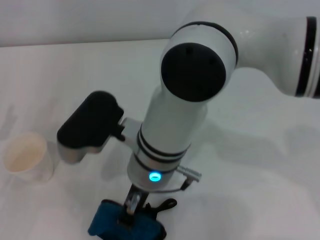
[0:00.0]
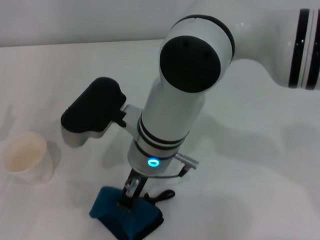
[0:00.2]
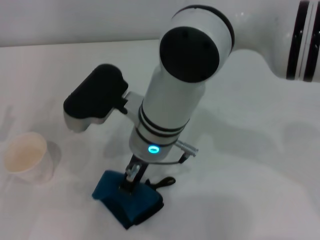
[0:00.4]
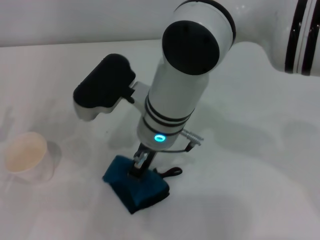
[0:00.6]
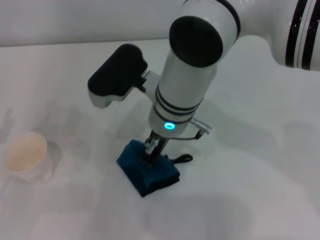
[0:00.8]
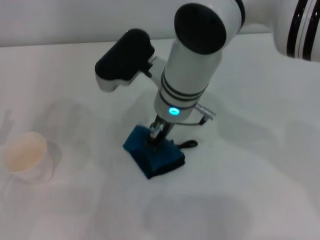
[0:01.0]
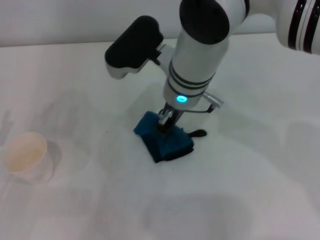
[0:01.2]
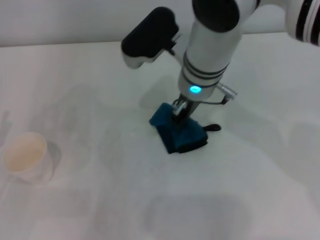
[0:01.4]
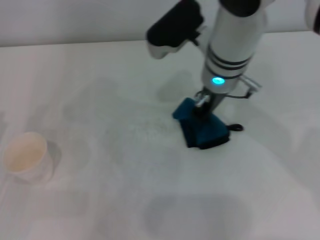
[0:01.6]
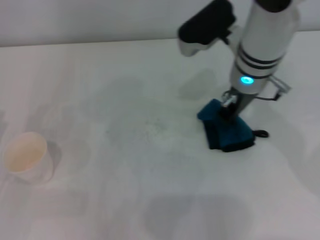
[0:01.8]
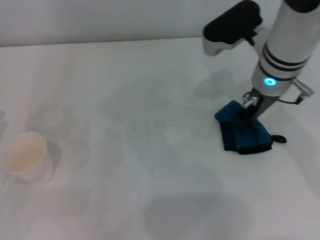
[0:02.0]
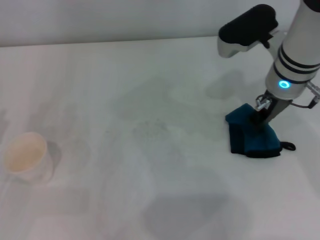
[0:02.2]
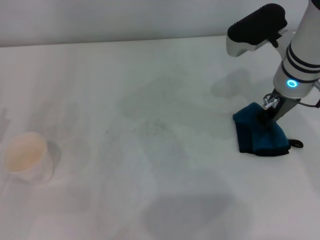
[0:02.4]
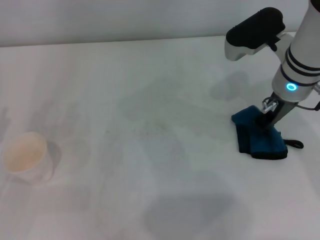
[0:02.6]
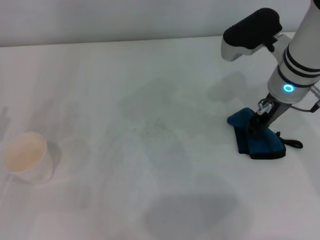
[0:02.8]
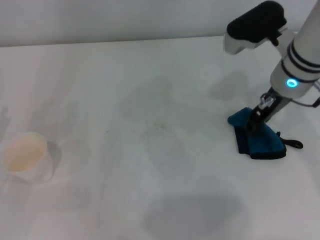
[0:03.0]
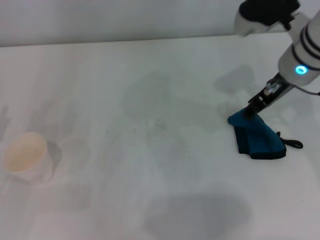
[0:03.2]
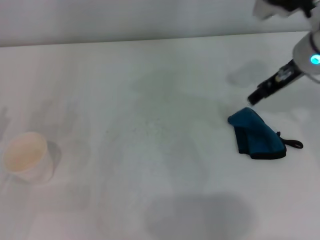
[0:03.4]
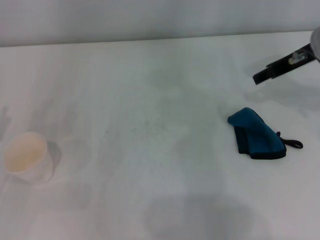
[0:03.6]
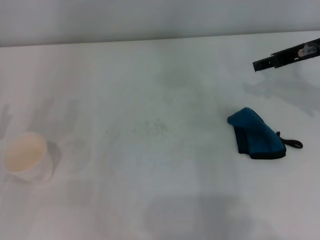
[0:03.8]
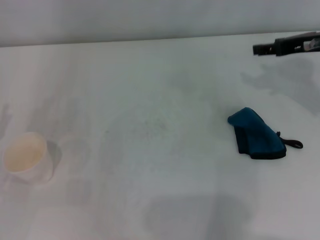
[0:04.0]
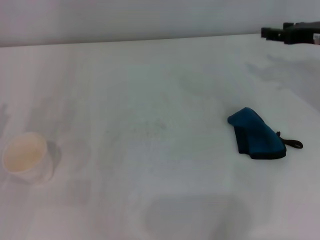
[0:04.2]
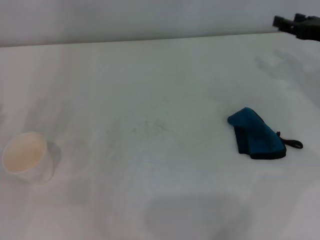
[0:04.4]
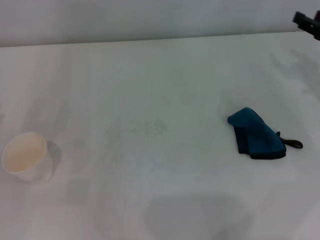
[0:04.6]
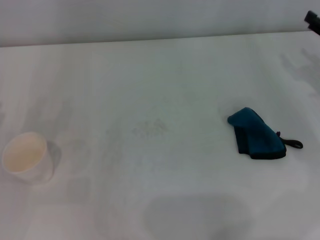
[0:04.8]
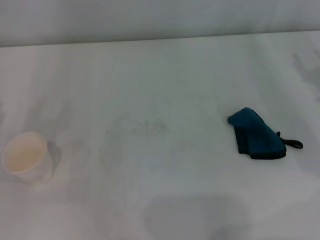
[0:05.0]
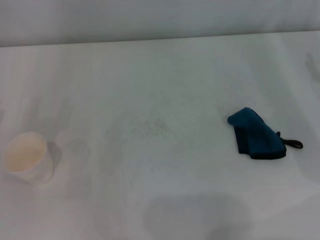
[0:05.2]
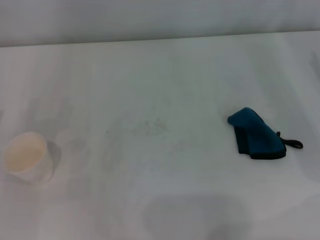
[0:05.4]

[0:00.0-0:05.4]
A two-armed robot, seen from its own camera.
Step, 0:02.0 to 0:02.6: Place the rag on the table with the right gripper.
0:00.0 to 0:01.4: The right gripper travels forward and to the right by some 15 cm.
0:01.4 to 0:02.8: The right gripper moves to the right, roughly 15 cm.
0:02.8 to 0:04.0: The right gripper is displaced to the right by approximately 10 cm, and opens its fingers.
0:04.0 to 0:05.4: The right gripper moves downward, to the right and backward, some 15 cm.

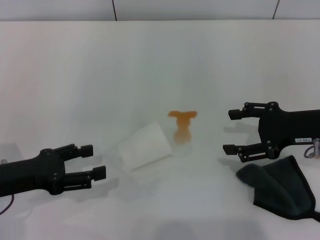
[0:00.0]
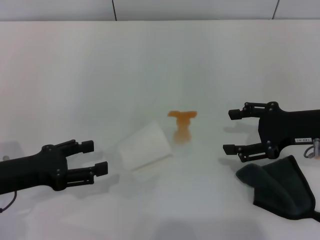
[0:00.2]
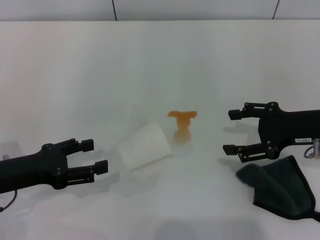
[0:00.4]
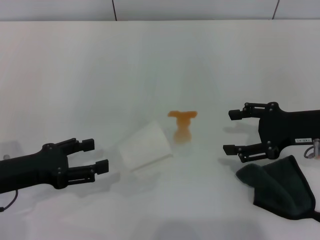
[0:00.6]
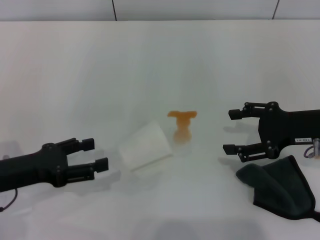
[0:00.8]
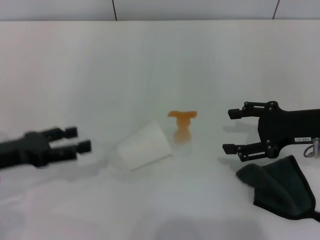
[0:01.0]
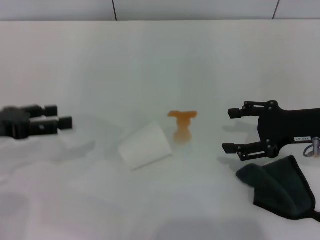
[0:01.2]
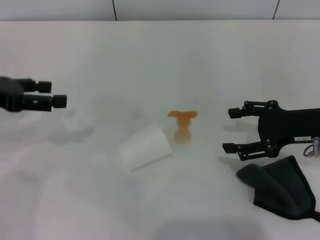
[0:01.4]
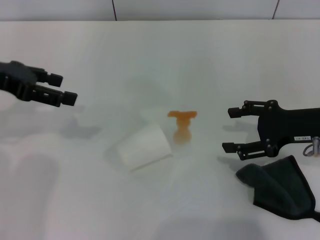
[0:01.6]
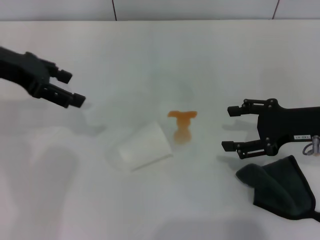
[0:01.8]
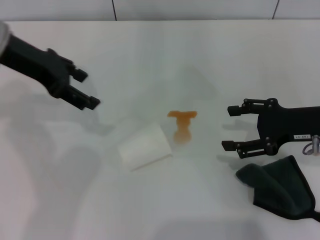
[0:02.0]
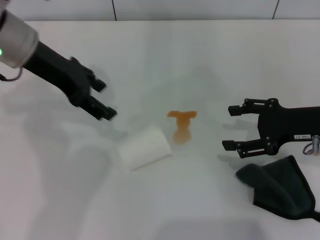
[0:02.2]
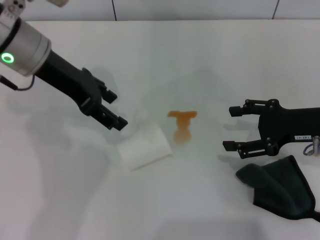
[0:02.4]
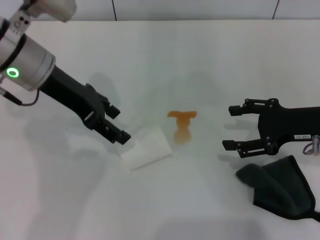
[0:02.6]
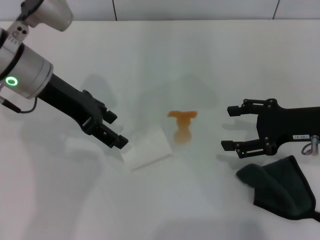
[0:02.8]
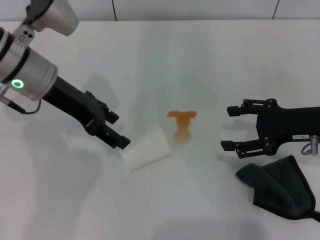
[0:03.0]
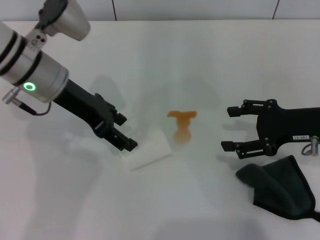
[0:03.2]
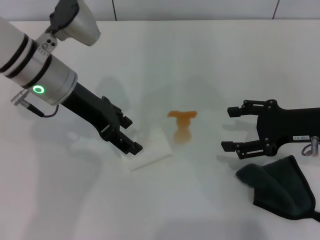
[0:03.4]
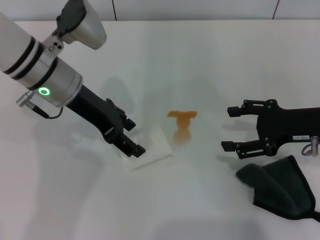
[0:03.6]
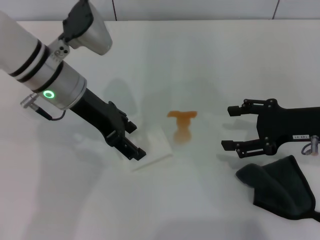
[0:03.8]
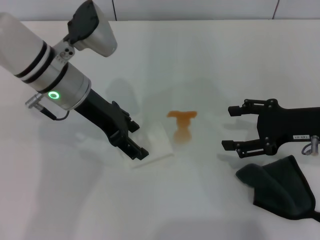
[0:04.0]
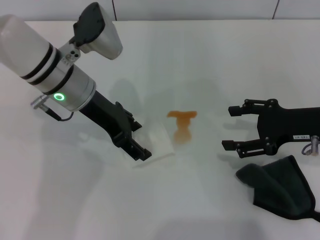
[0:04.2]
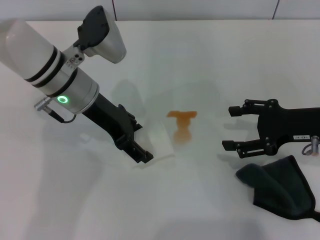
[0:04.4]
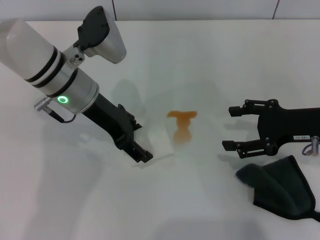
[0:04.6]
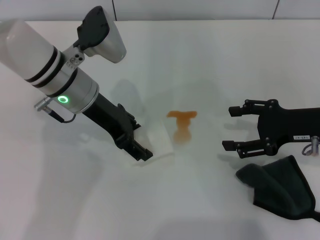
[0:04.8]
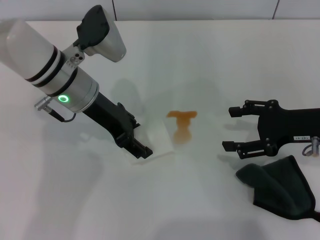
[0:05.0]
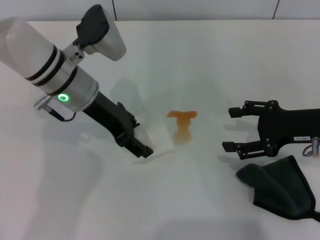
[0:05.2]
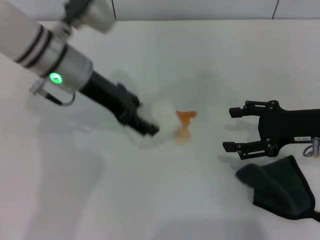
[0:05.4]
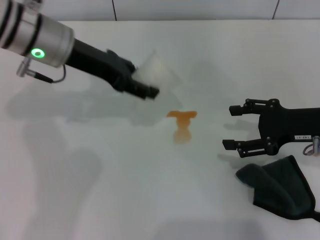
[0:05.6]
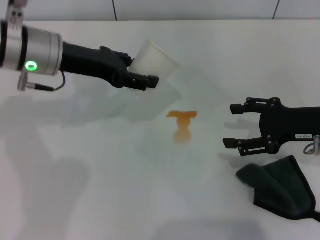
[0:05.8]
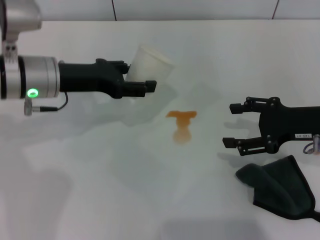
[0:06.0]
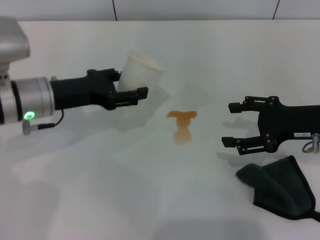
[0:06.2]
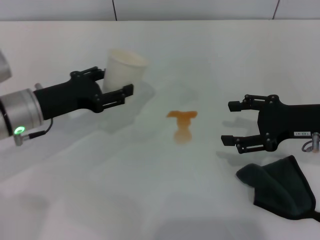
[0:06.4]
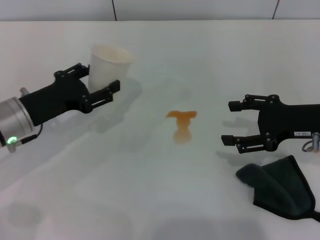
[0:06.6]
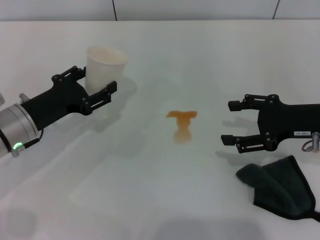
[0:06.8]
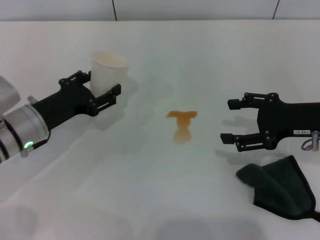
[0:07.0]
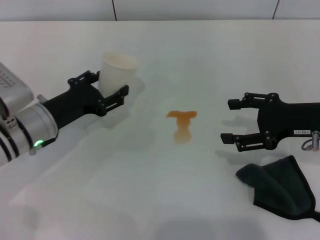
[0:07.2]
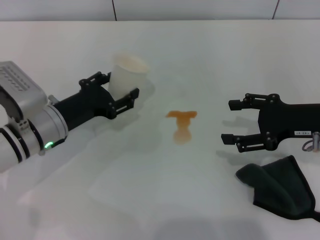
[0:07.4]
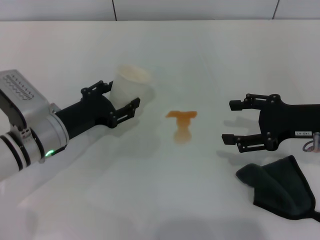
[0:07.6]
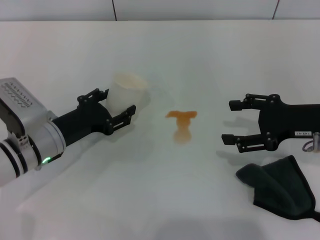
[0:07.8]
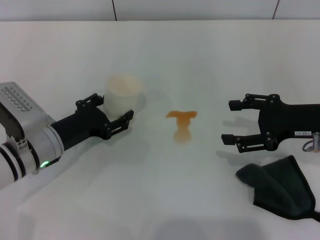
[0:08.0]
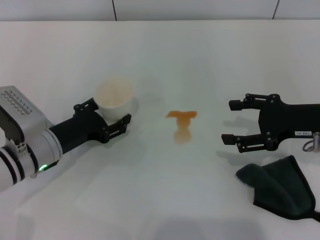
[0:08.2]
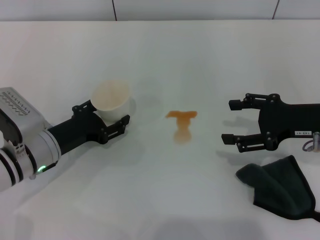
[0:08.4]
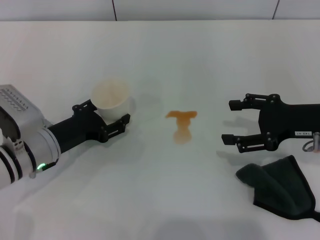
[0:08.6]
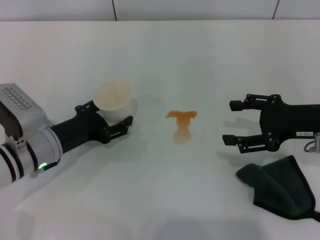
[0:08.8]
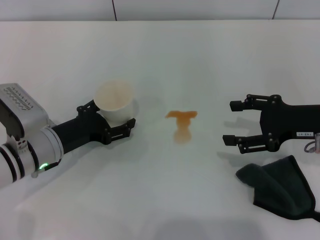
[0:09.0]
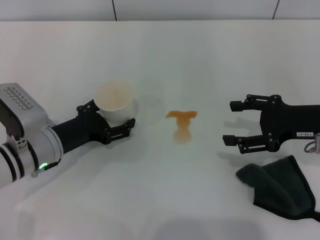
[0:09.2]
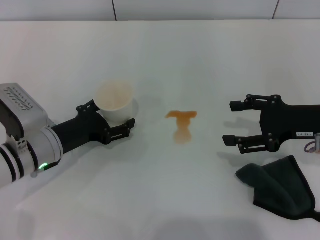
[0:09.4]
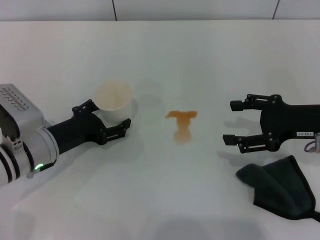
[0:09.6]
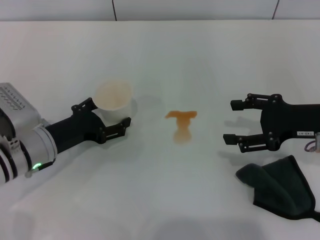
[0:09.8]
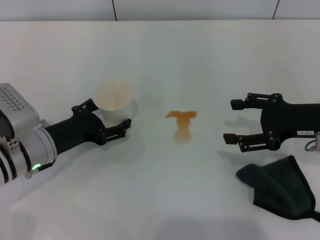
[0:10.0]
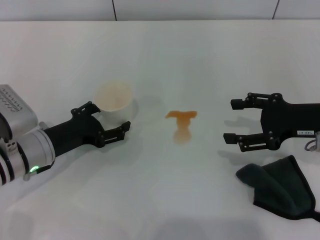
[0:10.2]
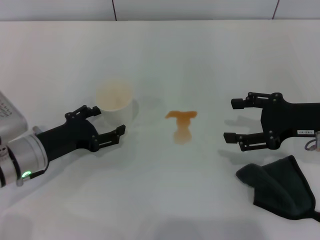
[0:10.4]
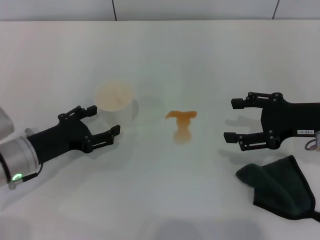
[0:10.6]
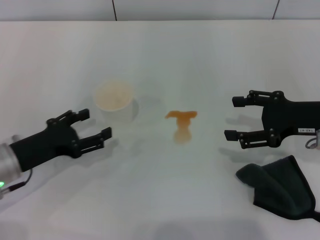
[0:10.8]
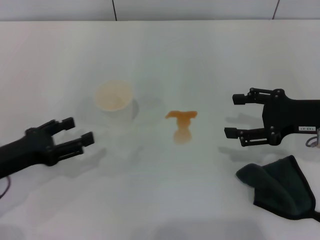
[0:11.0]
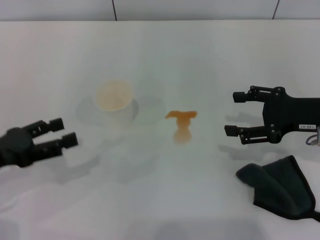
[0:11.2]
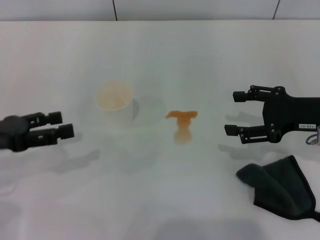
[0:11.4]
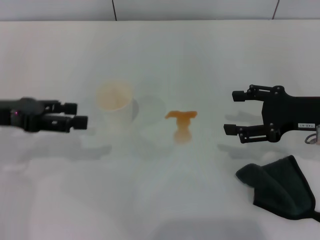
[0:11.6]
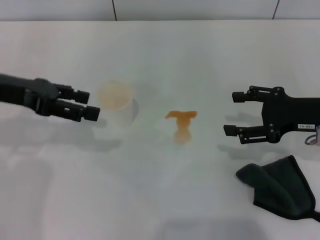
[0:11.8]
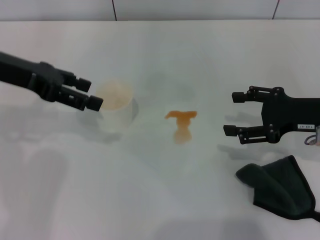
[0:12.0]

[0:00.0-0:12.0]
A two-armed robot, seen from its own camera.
Step, 0:00.0 to 0:04.8: Grasp the paper cup with the left gripper.
Step, 0:05.0 to 0:10.8: Stand the paper cup upright with the left gripper.
0:00.0 to 0:01.6: The left gripper travels upward and forward by roughly 20 cm.
0:01.6 to 0:03.0: The left gripper goes roughly 10 cm to the right.
0:03.0 to 0:04.4: The left gripper ends up some 5 cm from where it was.
0:04.4 to 0:06.0: The left gripper travels to the left by roughly 5 cm, and closes up.
0:06.0 to 0:07.6: The left gripper goes some 10 cm downward and backward.
0:07.6 to 0:09.0: The left gripper opens.
0:09.0 to 0:10.4: The left gripper opens.
0:10.4 to 0:12.0: The left gripper travels upward and forward by some 20 cm.

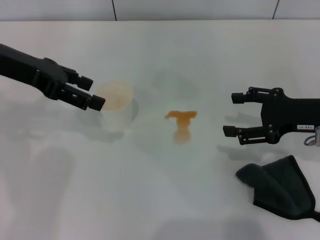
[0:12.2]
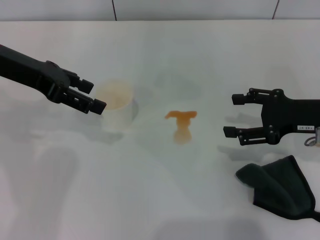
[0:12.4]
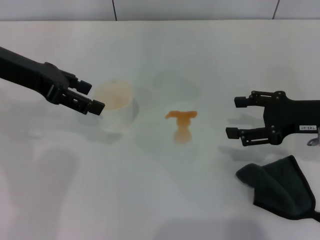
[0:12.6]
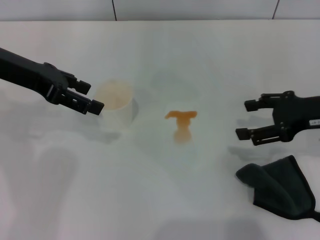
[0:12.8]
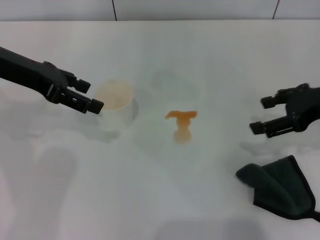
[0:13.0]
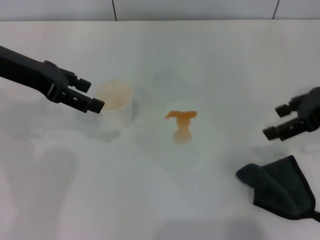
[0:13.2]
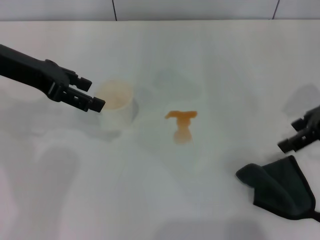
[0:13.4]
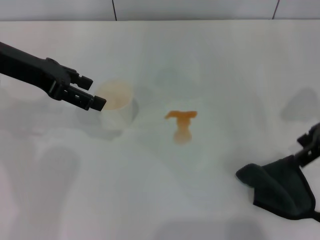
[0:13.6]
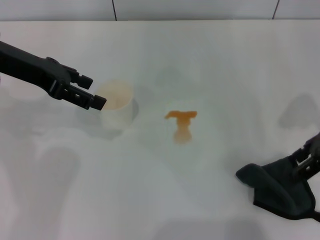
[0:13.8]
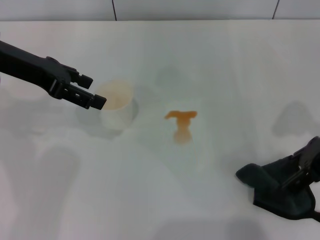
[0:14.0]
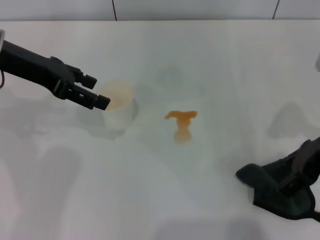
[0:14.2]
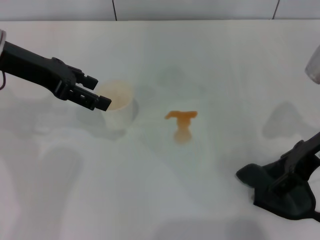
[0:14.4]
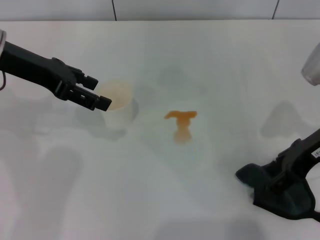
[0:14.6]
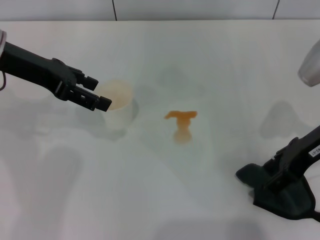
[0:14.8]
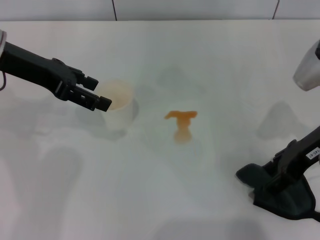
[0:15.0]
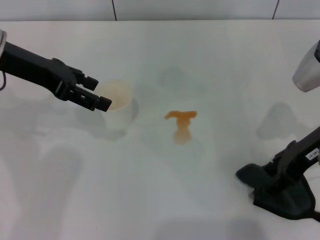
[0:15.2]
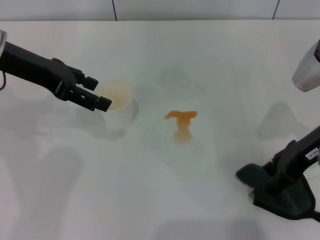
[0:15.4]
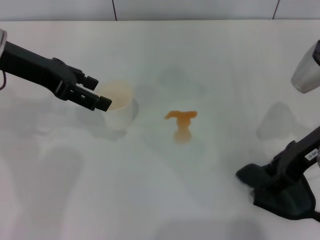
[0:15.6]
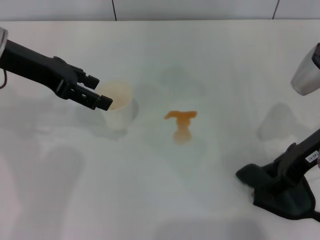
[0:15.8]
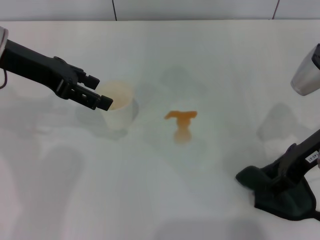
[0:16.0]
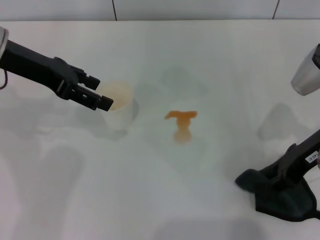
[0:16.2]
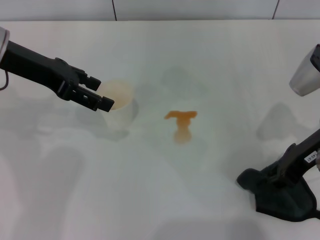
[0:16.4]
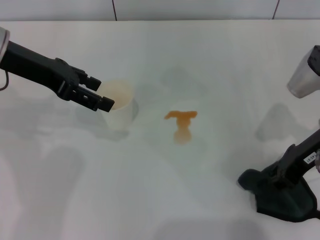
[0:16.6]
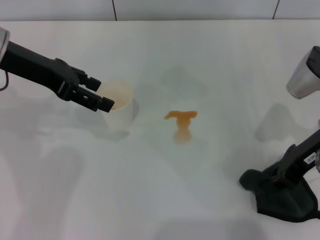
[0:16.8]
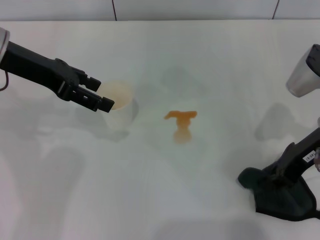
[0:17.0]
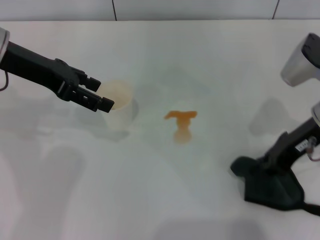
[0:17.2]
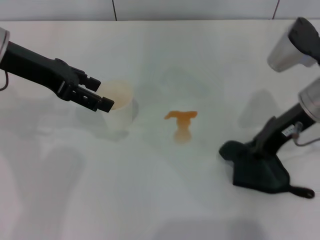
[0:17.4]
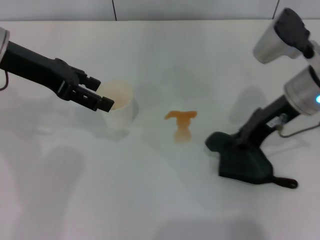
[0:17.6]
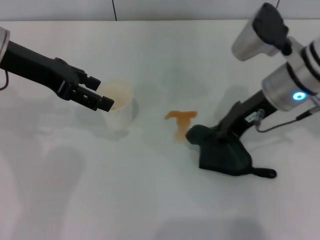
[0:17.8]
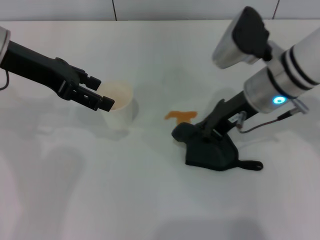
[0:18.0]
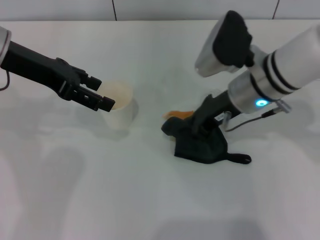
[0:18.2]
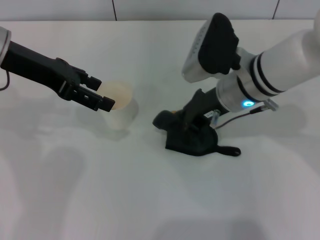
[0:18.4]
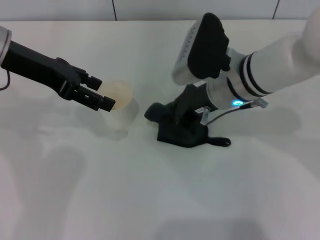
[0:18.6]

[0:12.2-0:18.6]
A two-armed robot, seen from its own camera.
Step, 0:12.2 to 0:17.0: Grasp the rag with the right gripper.
0:12.2 to 0:13.8: The right gripper is displaced upward by roughly 5 cm.
0:13.8 to 0:15.4: The right gripper moves approximately 5 cm.
0:15.4 to 0:17.0: The right gripper closes.
0:17.0 to 0:18.6: The right gripper moves to the left, some 15 cm.
